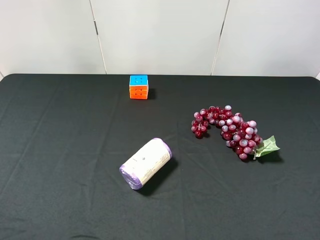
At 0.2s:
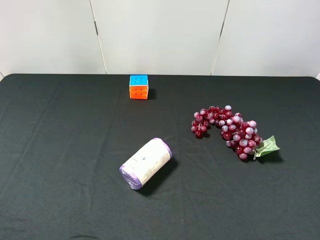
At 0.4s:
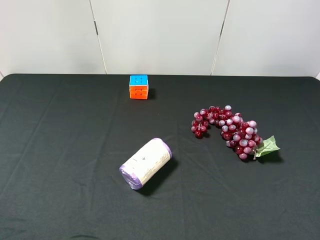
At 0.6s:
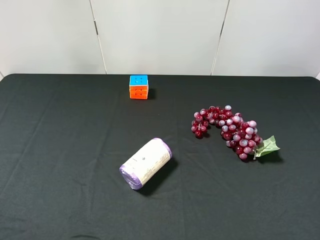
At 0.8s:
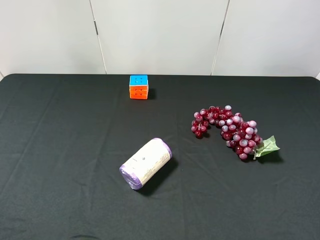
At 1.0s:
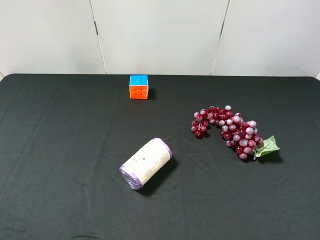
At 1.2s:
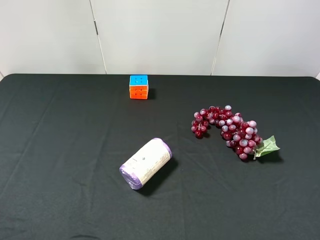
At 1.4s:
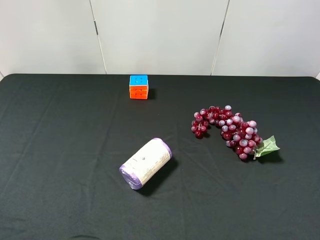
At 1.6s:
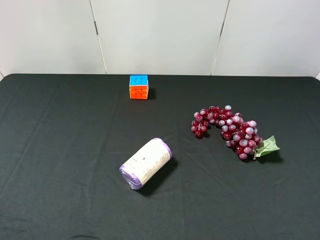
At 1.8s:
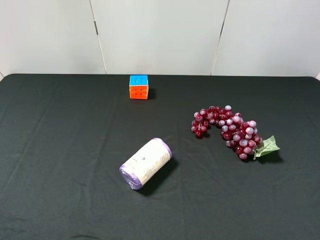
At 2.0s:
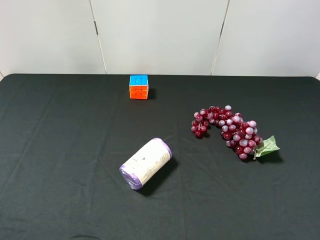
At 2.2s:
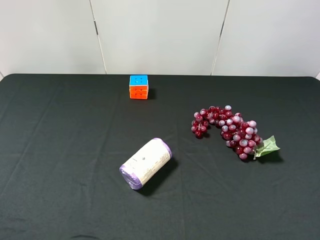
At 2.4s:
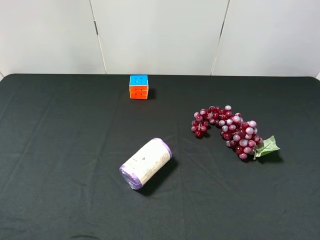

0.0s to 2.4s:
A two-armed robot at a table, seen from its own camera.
Task of the whole recording: use the left gripper to pick up the item and transfer it from the left gripper to the right gripper.
1.2s to 2.4s: Both grippers stay about where they are.

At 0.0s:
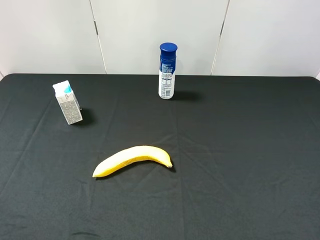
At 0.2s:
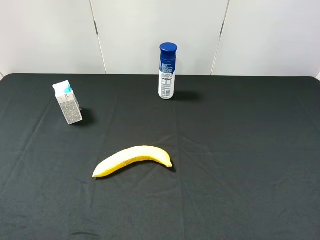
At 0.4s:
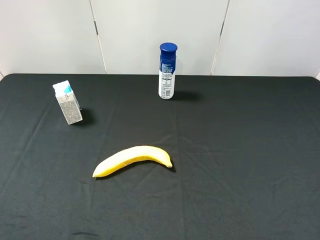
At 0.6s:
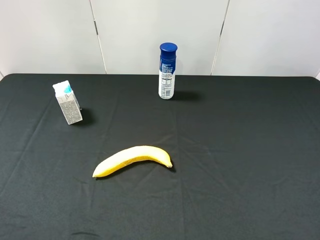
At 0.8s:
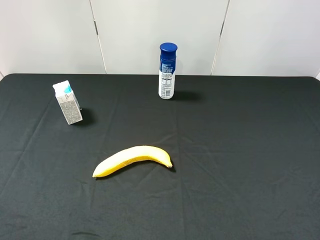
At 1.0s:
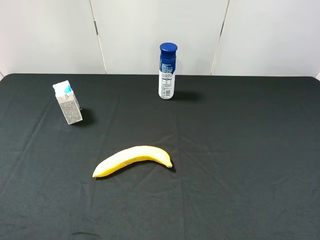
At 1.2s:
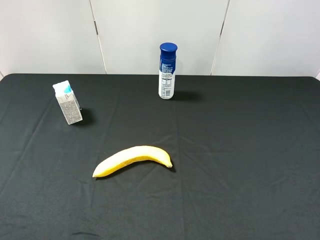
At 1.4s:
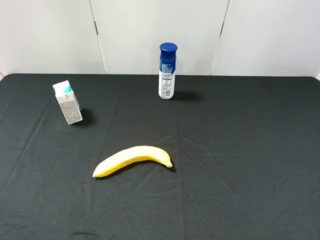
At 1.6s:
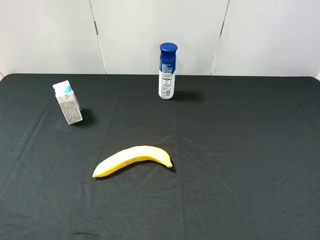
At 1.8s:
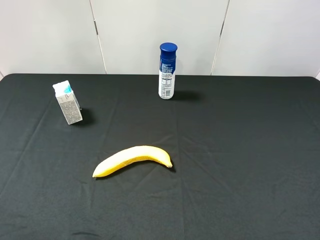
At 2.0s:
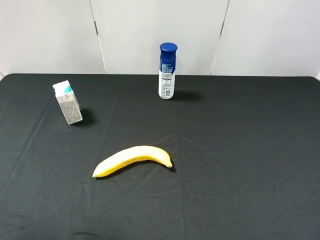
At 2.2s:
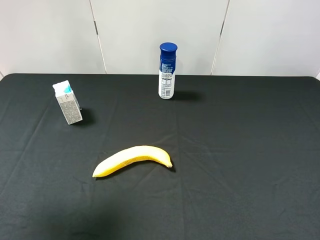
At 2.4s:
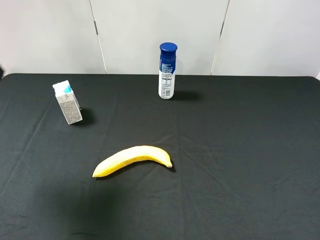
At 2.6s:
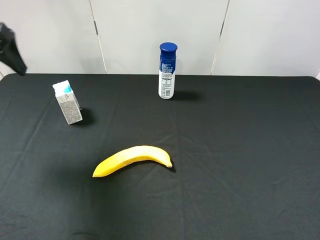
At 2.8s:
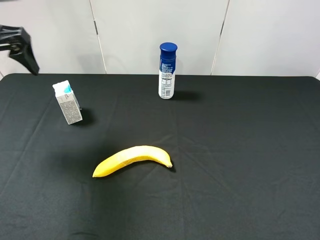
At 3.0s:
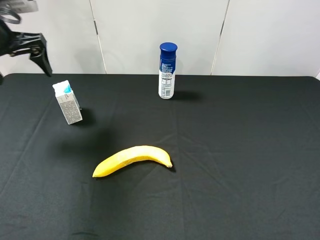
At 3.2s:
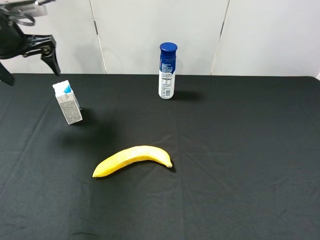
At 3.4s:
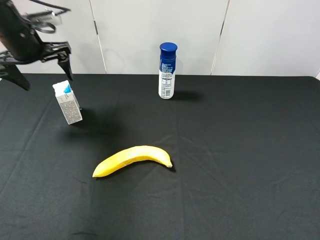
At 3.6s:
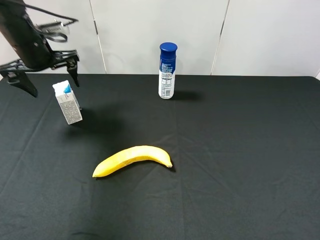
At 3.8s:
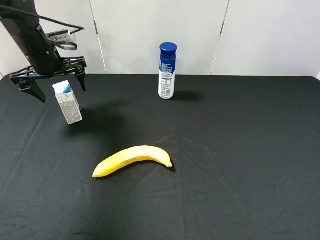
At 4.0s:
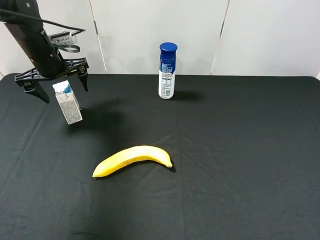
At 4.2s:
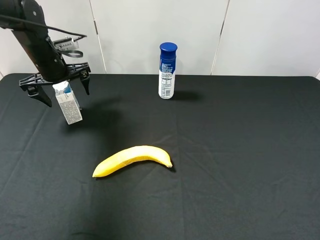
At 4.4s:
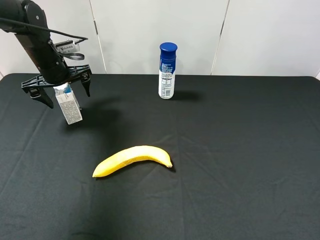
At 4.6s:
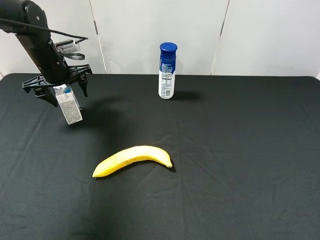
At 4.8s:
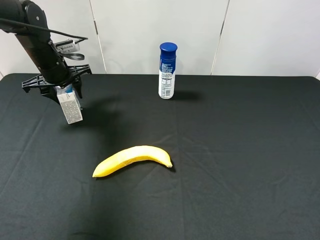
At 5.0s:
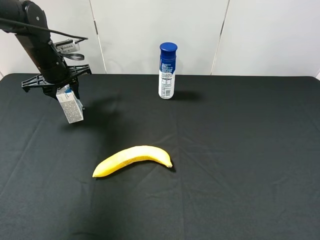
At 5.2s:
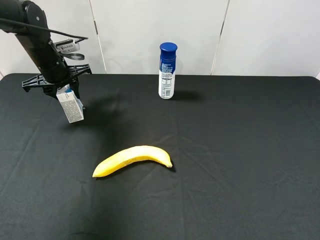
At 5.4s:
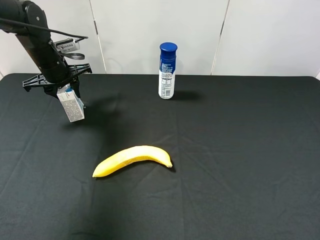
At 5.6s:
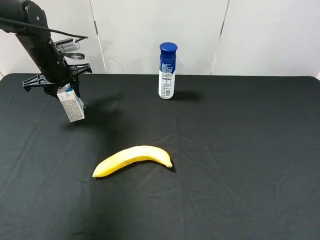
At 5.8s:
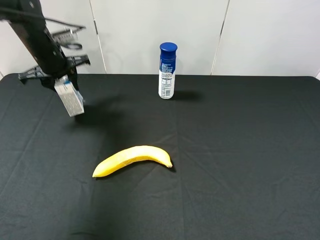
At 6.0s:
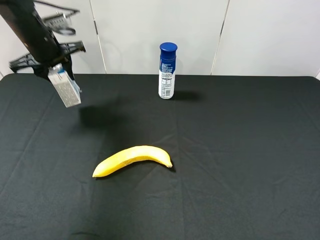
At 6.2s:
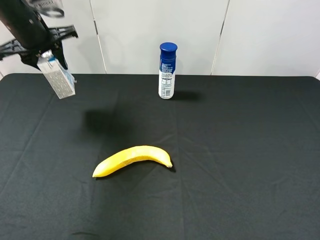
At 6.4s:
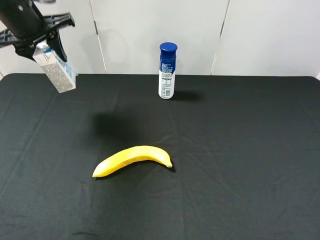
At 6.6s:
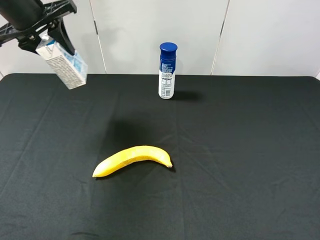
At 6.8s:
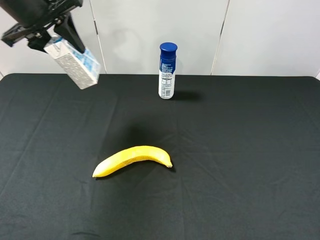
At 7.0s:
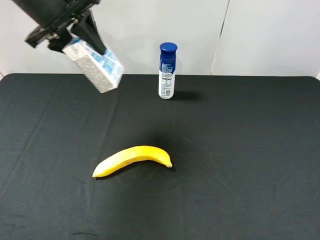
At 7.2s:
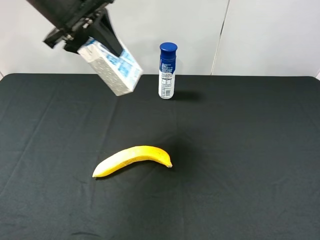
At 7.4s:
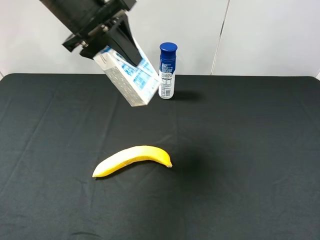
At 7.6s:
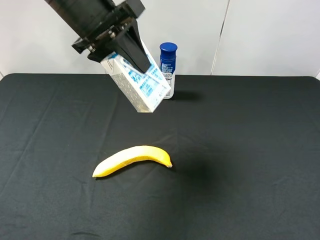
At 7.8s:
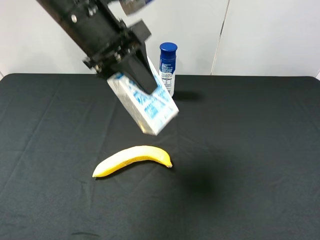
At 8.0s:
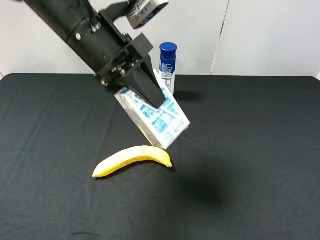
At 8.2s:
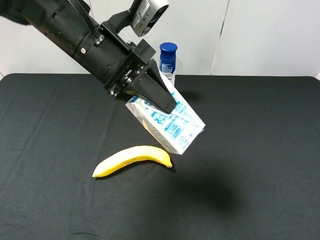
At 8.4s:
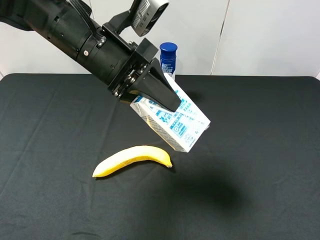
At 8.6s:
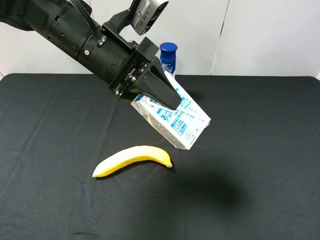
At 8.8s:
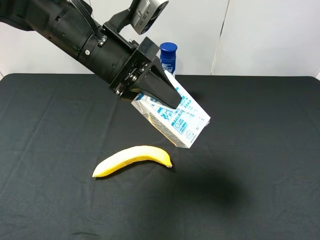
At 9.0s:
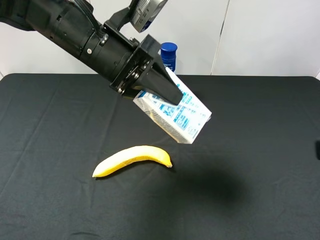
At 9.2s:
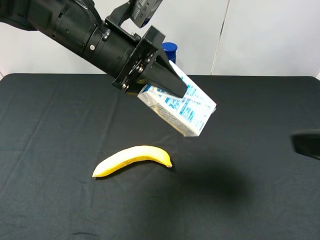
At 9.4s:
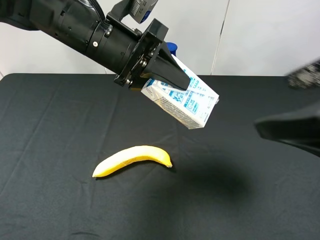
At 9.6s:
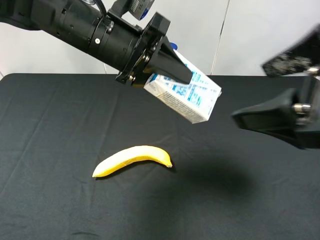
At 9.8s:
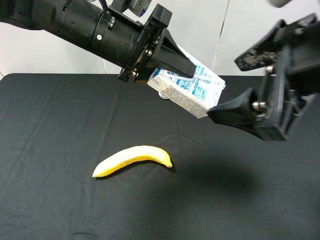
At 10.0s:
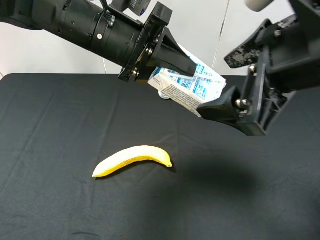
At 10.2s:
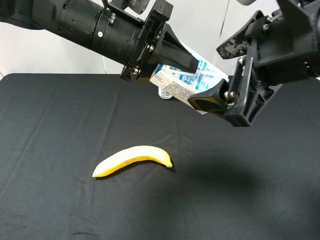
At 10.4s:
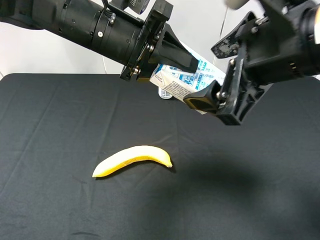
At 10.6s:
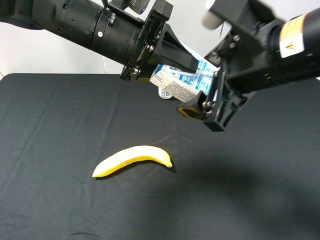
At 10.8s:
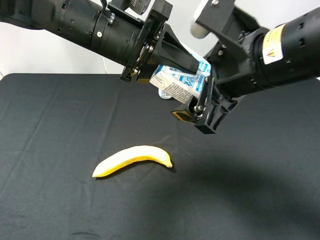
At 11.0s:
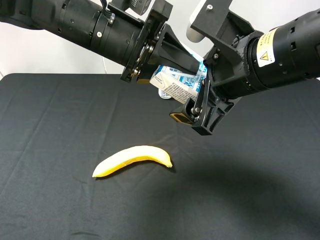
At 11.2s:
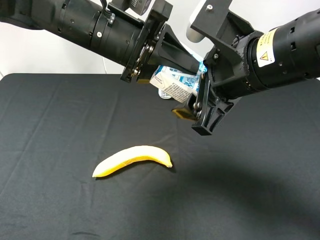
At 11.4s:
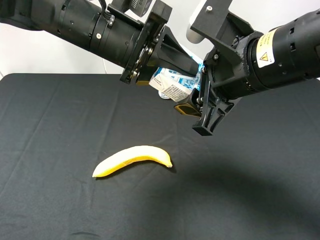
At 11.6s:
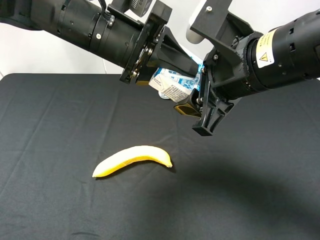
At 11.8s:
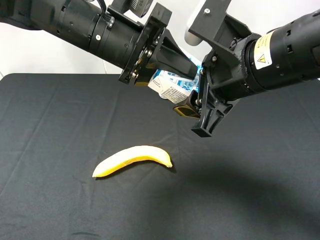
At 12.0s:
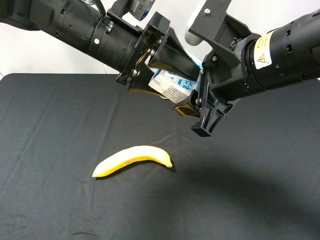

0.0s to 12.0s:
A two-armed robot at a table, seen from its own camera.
Task of the whole recording: use the left gripper to pick up the item and transfer it from the left gripper to the right gripper.
1.6s to 3.0s: The left gripper shifts about 35 cm forward.
3.0s to 4.4s: The left gripper moves downward and forward, roughly 15 cm.
4.4s to 6.0s: The left gripper shifts about 5 cm upward, and closes its fingers.
6.0s to 7.6s: The left gripper heads to the right, backward and upward, covering roughly 20 cm.
7.6s to 9.0s: The right gripper heads upward, covering about 5 cm. The left gripper heads downward, covering some 5 cm.
9.0s to 10.4s: The right gripper shifts approximately 15 cm to the left and forward.
10.4s to 12.0s: The left gripper opens its fingers; the right gripper closes.

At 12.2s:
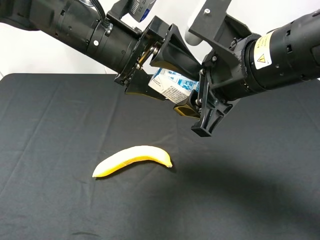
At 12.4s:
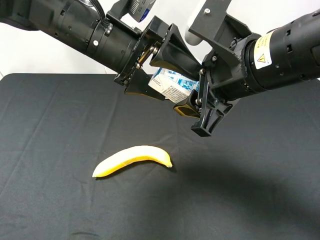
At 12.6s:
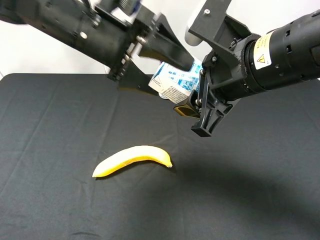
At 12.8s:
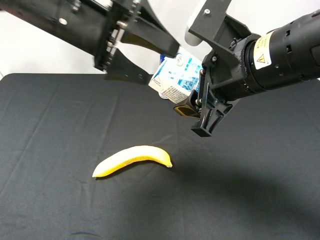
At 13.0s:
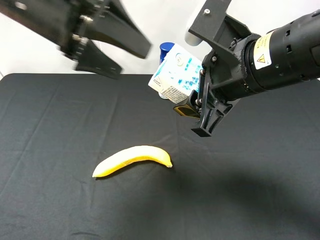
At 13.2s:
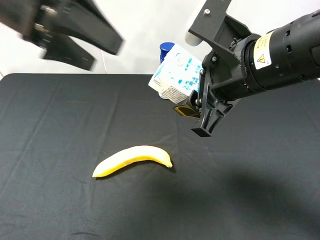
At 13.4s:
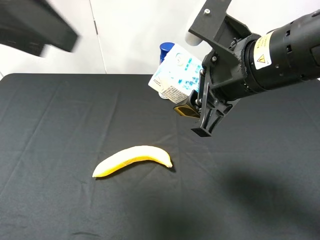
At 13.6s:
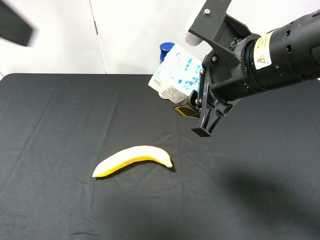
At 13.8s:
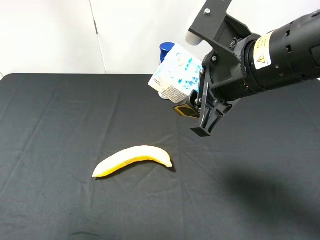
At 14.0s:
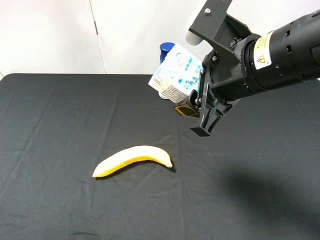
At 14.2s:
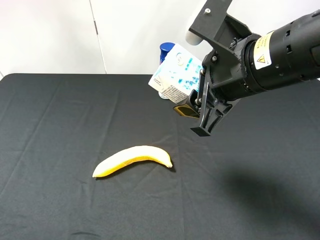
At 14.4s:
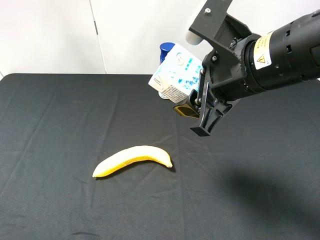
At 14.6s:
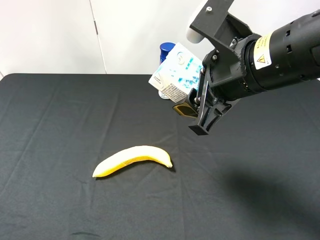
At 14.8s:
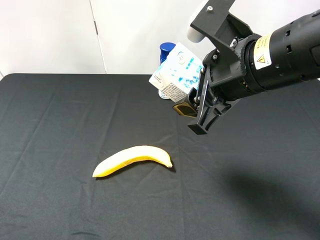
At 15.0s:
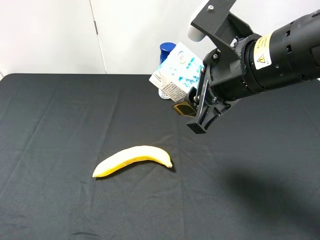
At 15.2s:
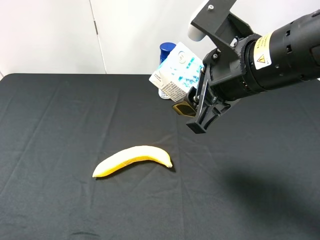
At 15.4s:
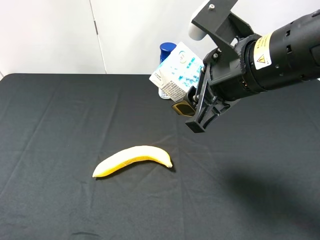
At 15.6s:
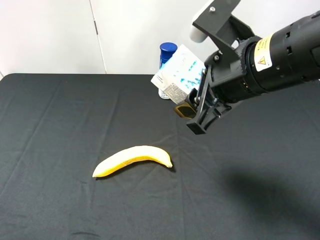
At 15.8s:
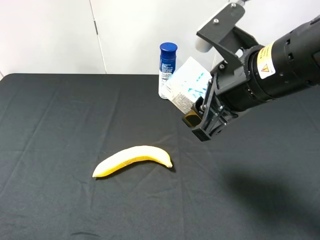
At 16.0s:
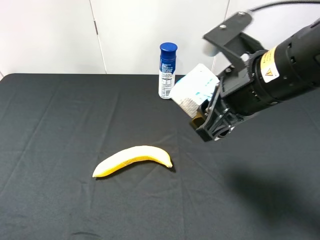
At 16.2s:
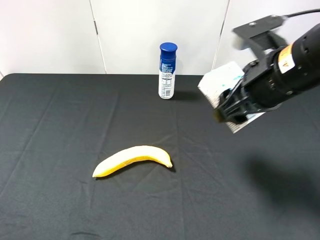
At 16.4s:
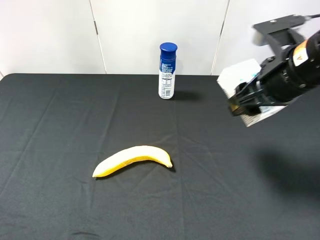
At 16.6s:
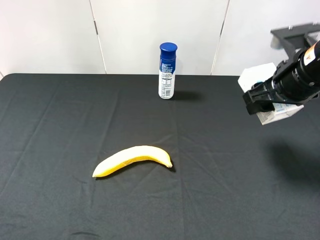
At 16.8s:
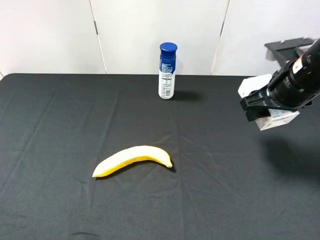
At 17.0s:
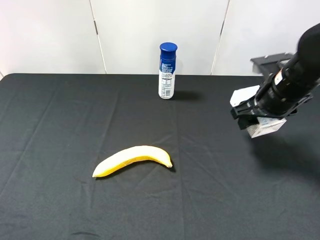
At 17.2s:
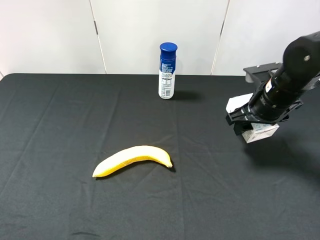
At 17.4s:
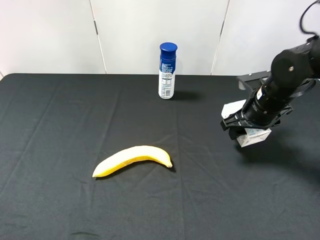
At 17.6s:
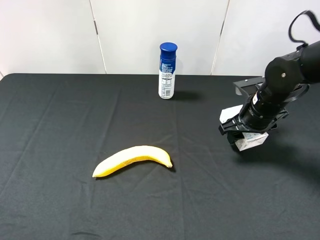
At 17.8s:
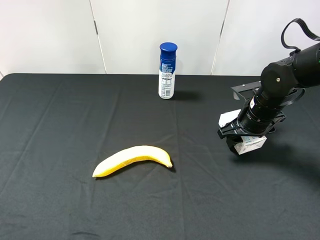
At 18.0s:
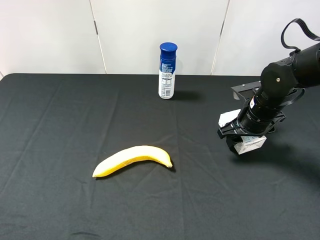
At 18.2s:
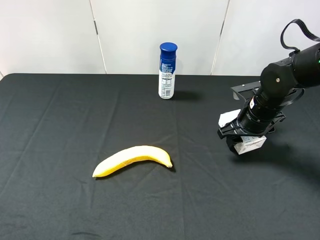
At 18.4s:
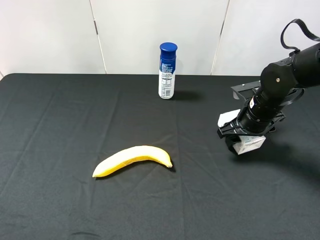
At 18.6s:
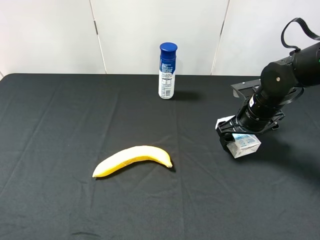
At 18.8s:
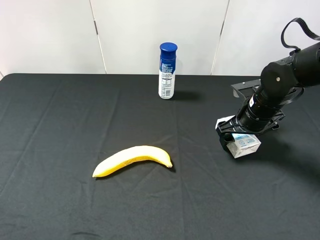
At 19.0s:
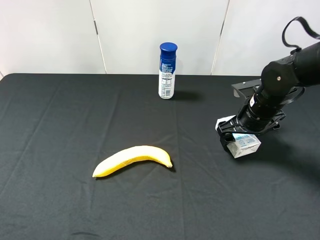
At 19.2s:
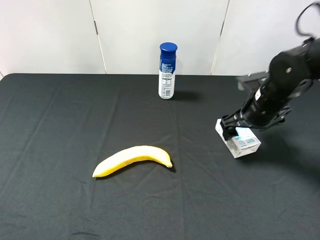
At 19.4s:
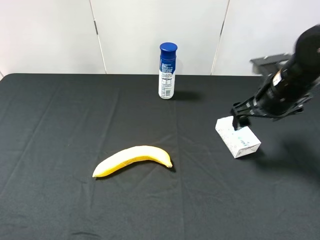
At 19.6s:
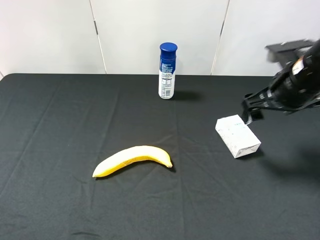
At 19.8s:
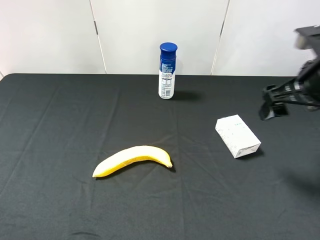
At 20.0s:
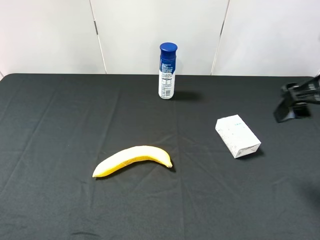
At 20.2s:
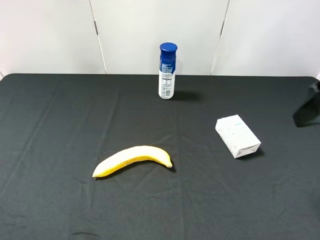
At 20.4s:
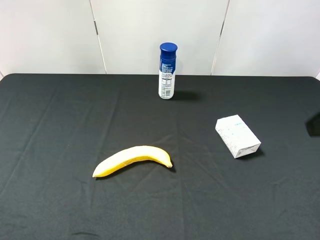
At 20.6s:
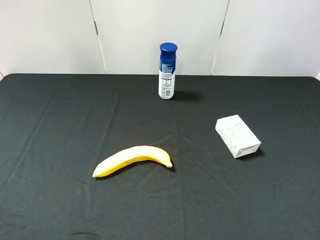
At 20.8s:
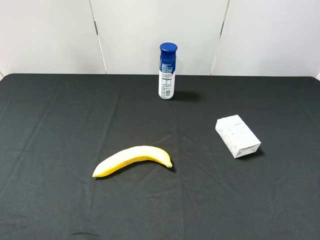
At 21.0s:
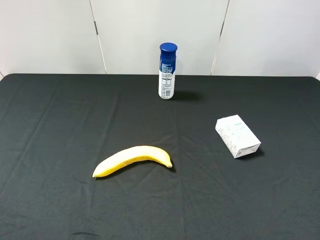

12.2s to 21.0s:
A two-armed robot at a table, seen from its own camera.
Task of the whole recording: use the left gripper to pick up the item and transfer it from the left gripper to the right gripper.
12.2s to 13.6s: The left gripper heads to the left, upward and backward, covering some 25 cm.
13.6s to 15.2s: The left gripper shifts some 20 cm backward, downward and to the left.
15.2s to 16.6s: The right gripper is displaced to the right and forward by some 15 cm.
16.6s to 18.0s: The right gripper travels downward by roughly 10 cm.
18.0s to 19.6s: The right gripper moves upward, approximately 10 cm, and opens up.
19.6s to 21.0s: The right gripper is displaced backward by roughly 25 cm.
